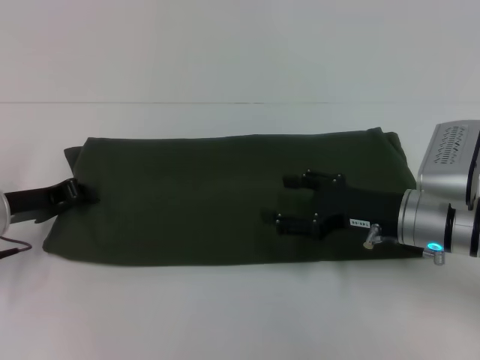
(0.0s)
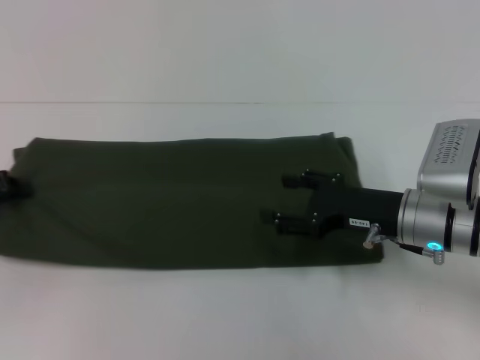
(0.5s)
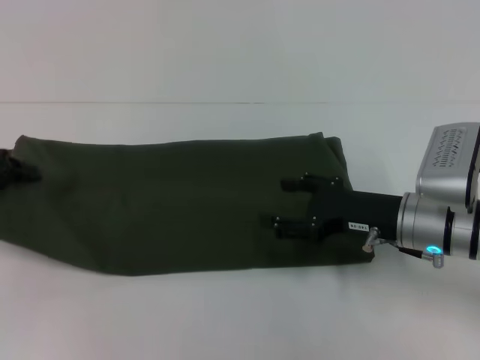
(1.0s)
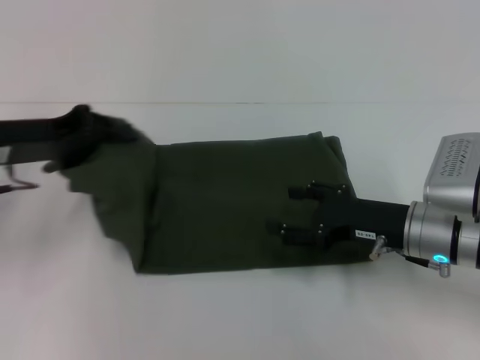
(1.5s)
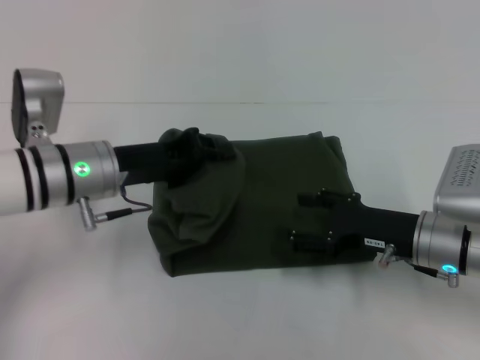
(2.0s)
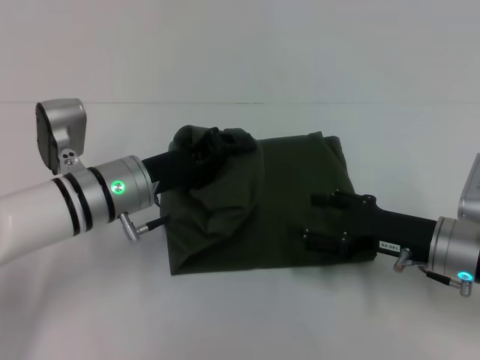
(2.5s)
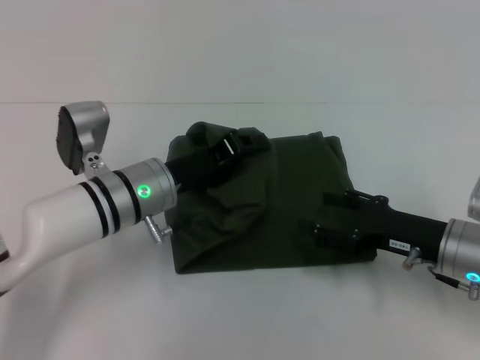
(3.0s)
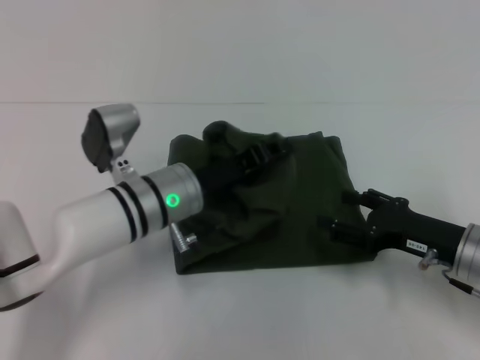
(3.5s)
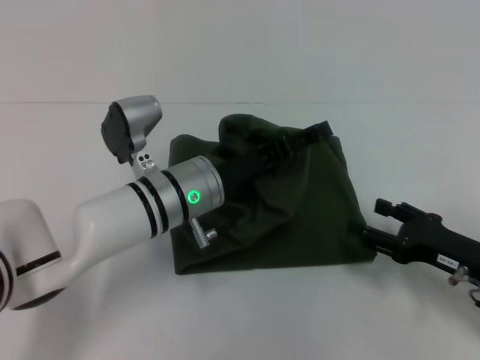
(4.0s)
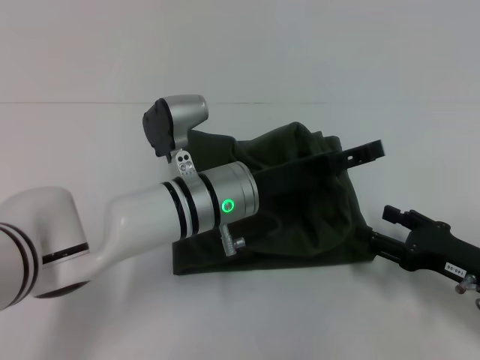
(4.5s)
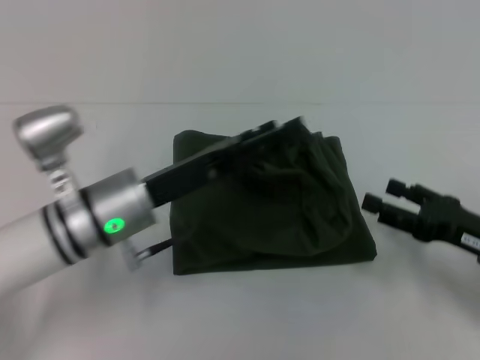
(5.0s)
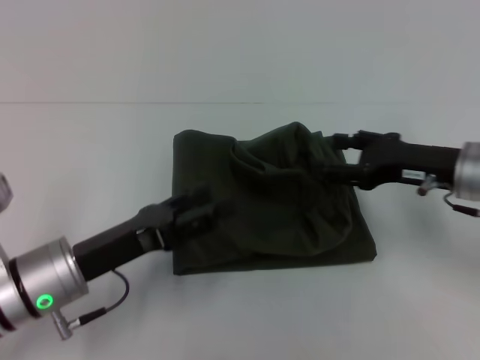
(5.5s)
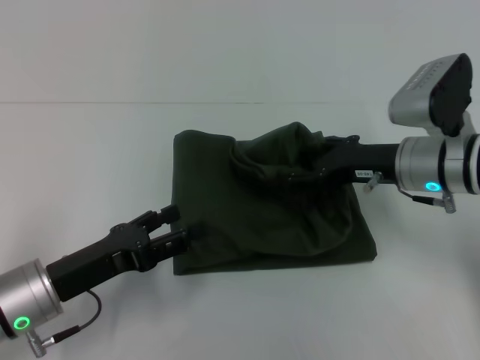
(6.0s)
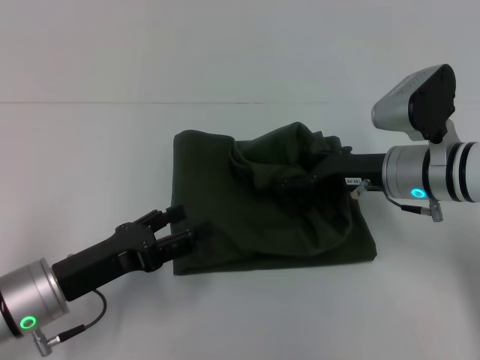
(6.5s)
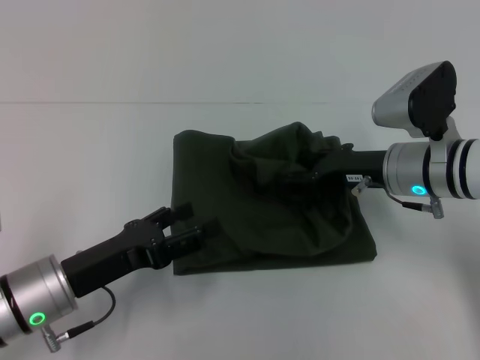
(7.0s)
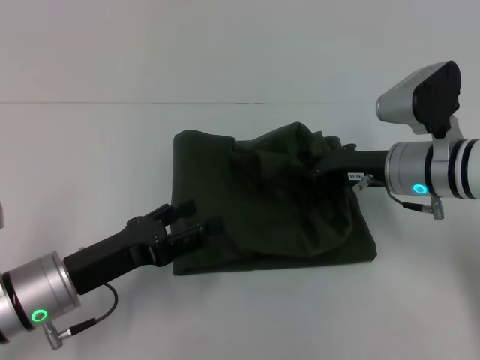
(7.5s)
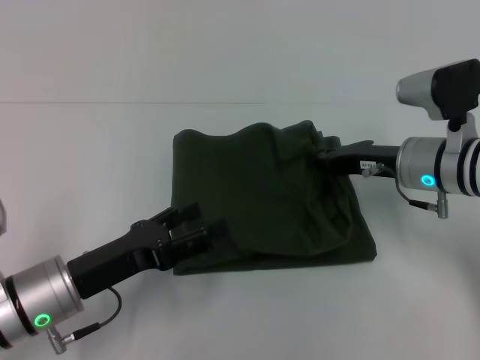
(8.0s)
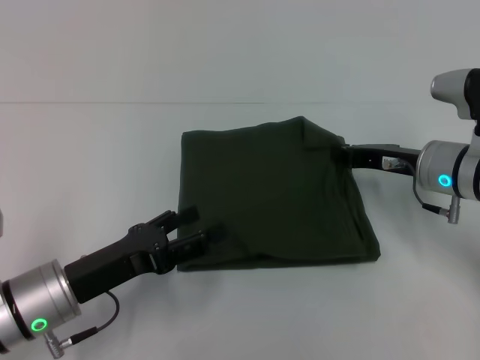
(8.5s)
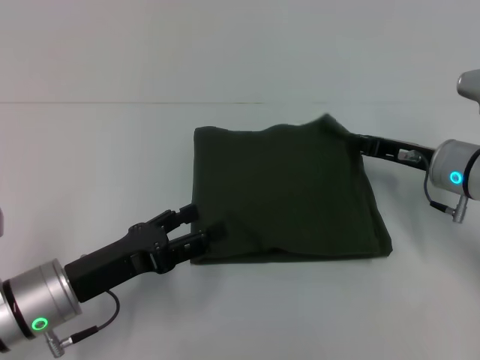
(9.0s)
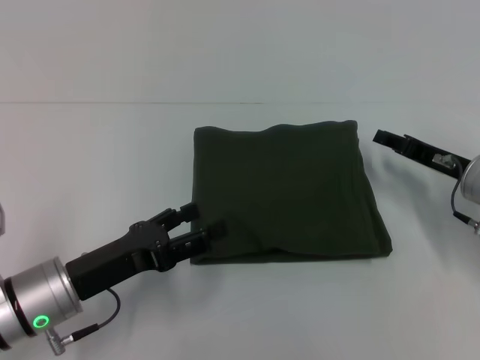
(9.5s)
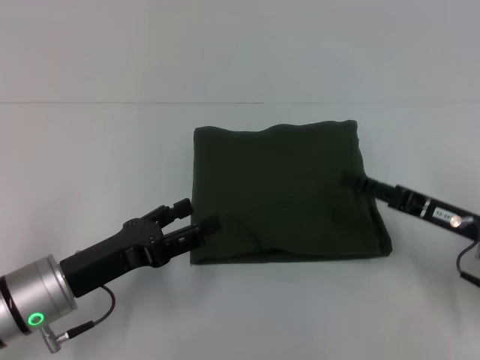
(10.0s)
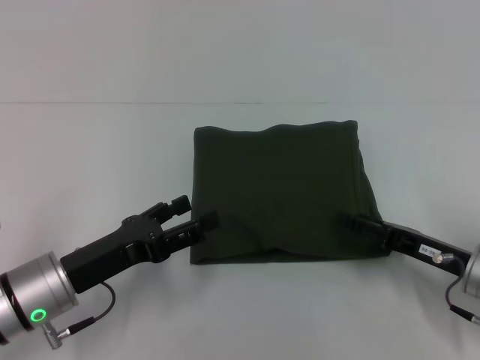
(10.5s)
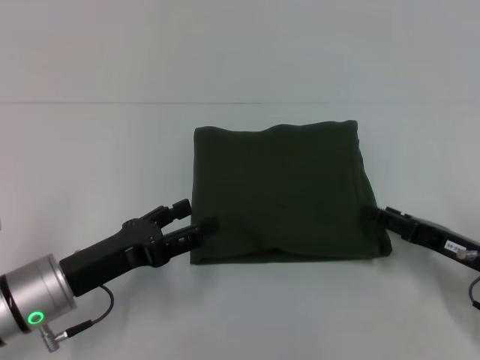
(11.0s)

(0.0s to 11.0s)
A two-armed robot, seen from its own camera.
Step, 0.0s - 9.5s: Fold the clothes with your left hand.
0.0s - 2.0s: The left gripper goes roughly 10 cm to the right.
2.0s - 3.5s: The left gripper goes approximately 10 cm to the right.
3.5s - 5.5s: The right gripper goes roughly 10 cm upward and forward. Meanwhile the left gripper travels to the left and backward by some 15 cm, and opens.
5.5s - 7.5s: The right gripper shifts approximately 5 cm to the left, and closes up.
7.5s - 9.0s: The right gripper shifts by roughly 5 cm.
9.0s - 11.0s: The right gripper moves backward, some 10 cm, and opens.

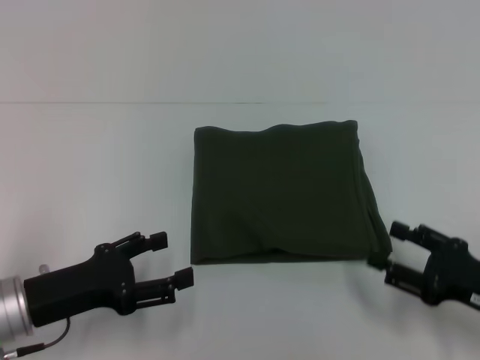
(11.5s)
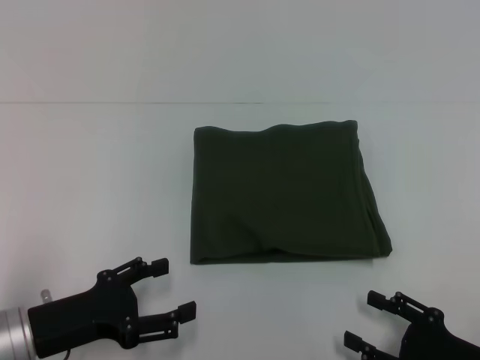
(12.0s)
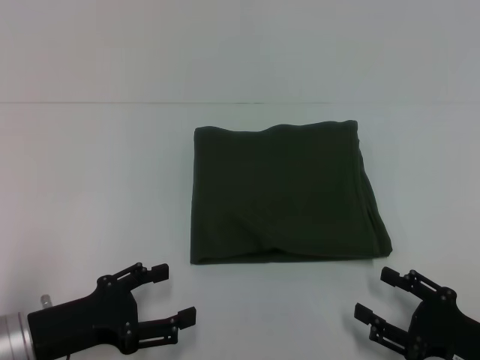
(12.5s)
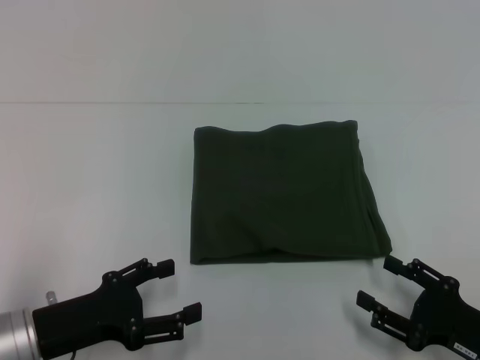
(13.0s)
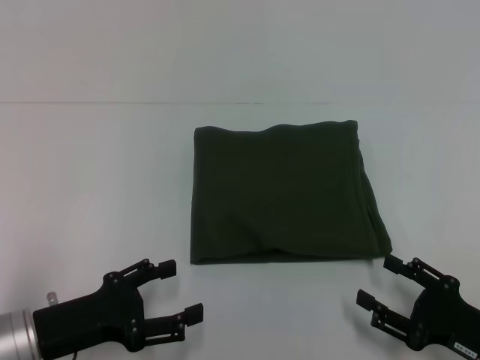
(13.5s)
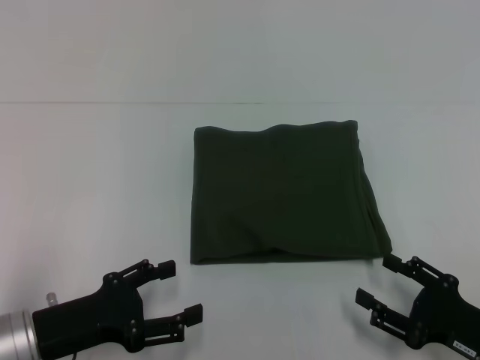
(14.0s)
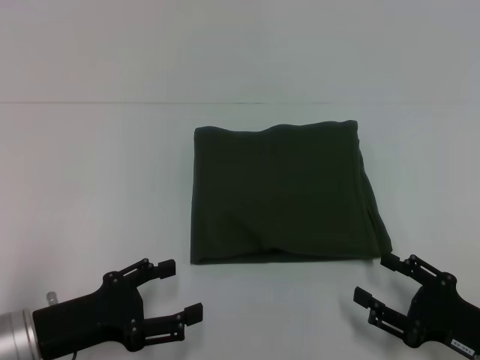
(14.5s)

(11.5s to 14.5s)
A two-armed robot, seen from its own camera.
11.5s - 13.0s: The right gripper changes place by some 5 cm.
13.0s - 14.5s: Neither gripper changes place.
